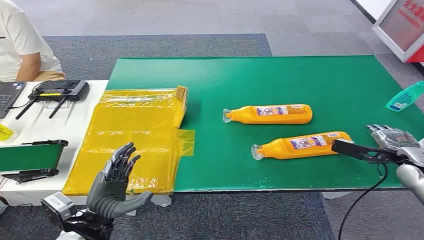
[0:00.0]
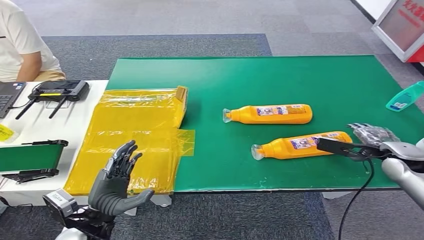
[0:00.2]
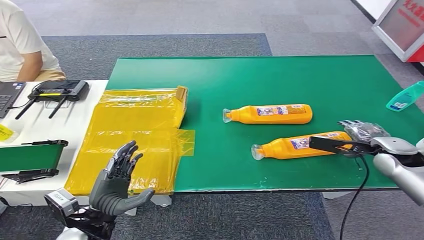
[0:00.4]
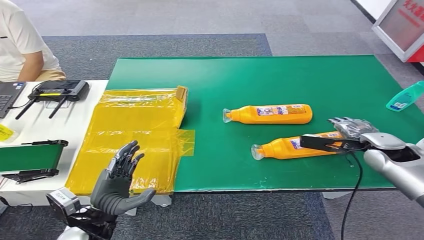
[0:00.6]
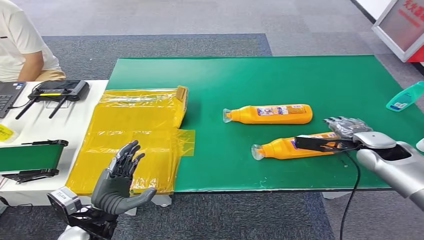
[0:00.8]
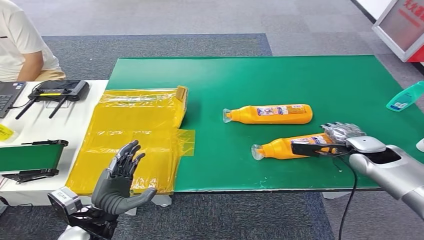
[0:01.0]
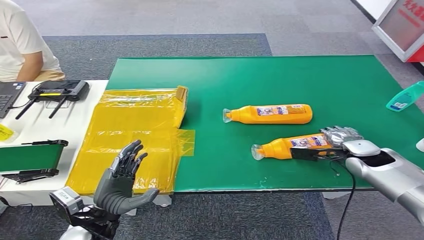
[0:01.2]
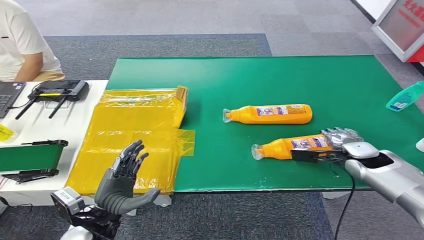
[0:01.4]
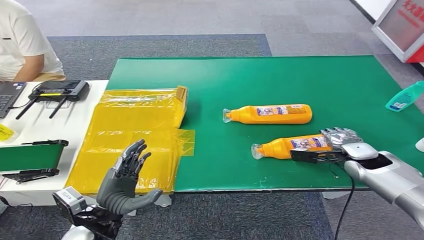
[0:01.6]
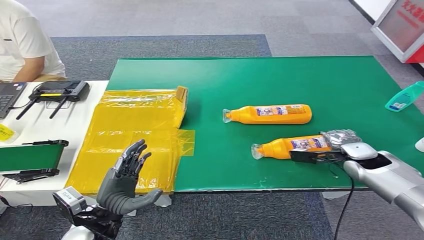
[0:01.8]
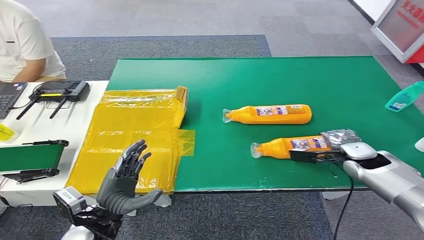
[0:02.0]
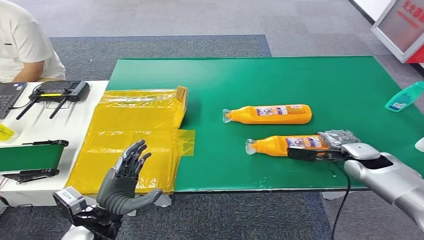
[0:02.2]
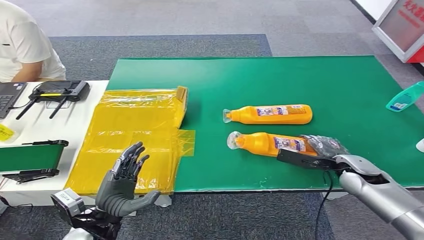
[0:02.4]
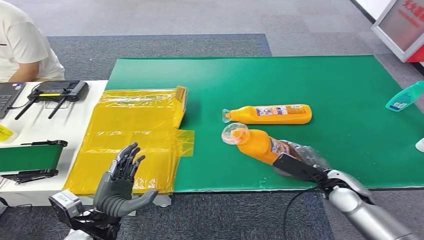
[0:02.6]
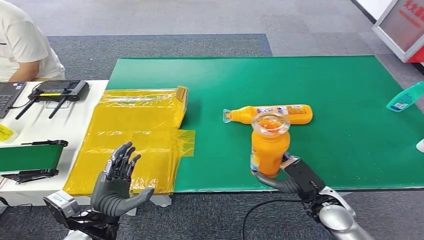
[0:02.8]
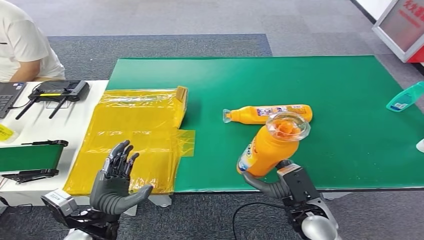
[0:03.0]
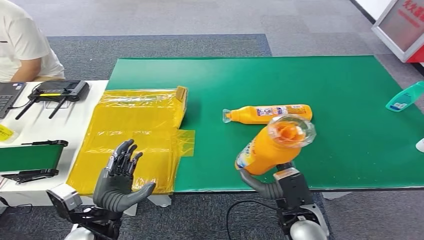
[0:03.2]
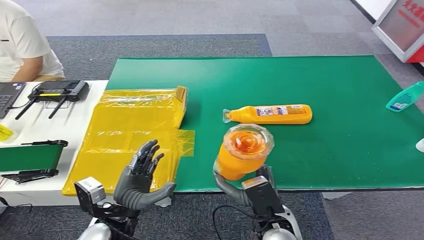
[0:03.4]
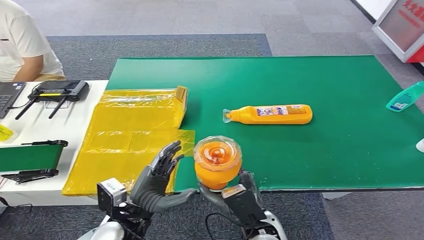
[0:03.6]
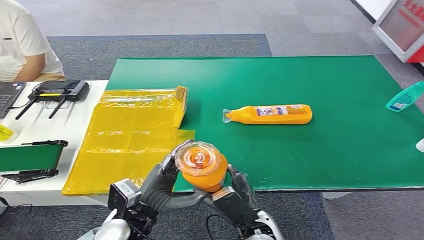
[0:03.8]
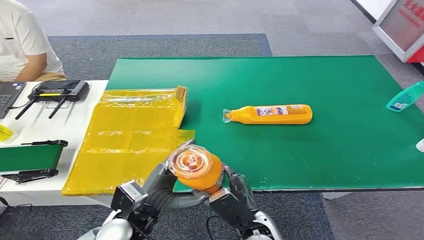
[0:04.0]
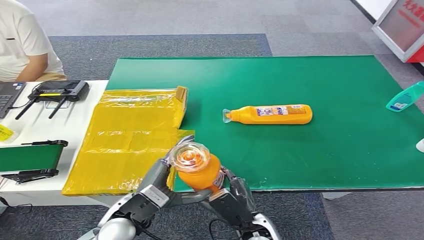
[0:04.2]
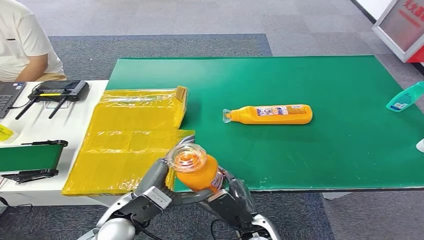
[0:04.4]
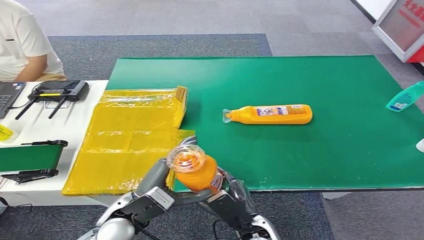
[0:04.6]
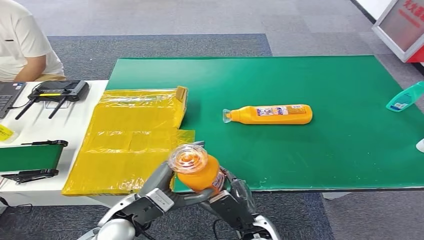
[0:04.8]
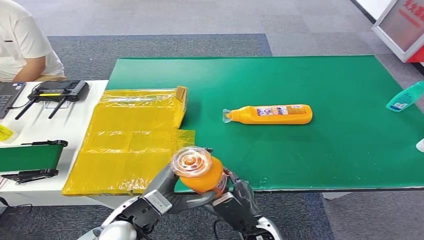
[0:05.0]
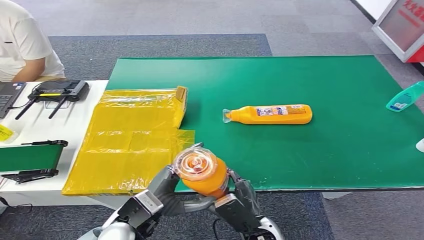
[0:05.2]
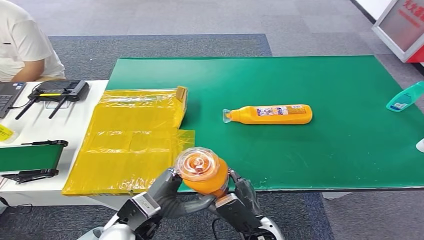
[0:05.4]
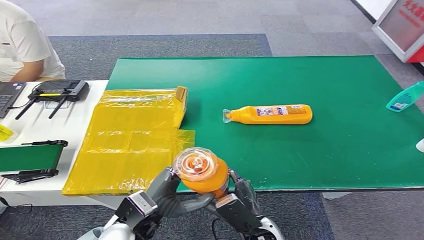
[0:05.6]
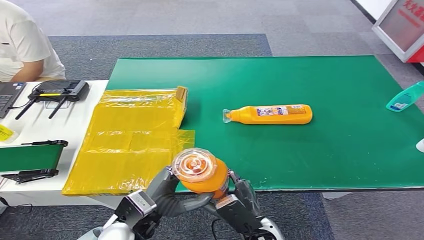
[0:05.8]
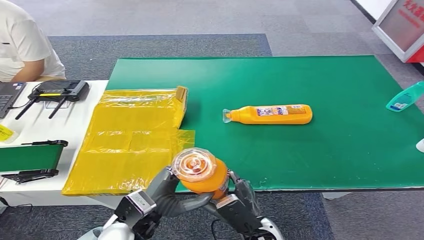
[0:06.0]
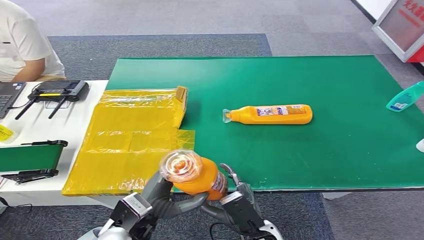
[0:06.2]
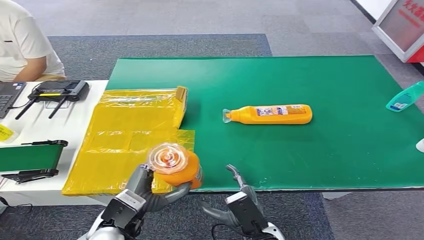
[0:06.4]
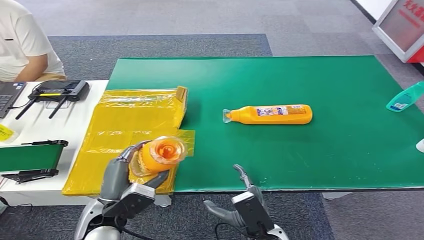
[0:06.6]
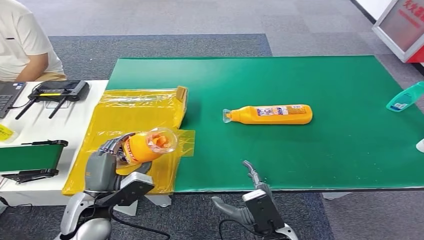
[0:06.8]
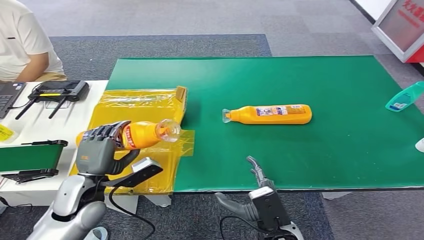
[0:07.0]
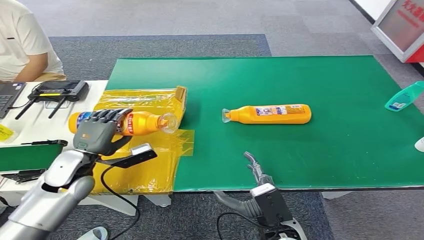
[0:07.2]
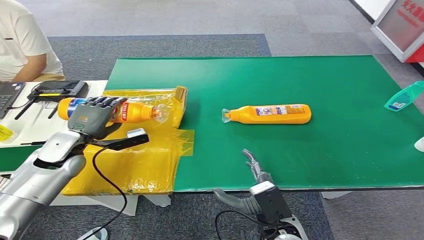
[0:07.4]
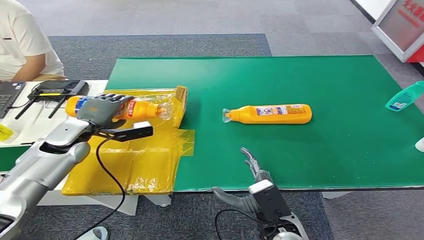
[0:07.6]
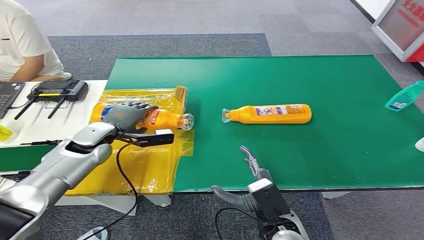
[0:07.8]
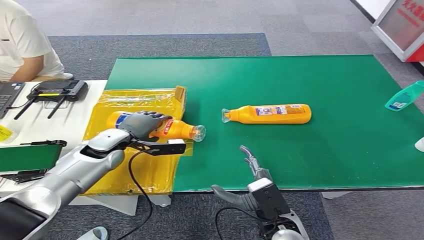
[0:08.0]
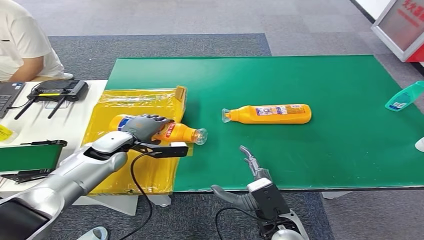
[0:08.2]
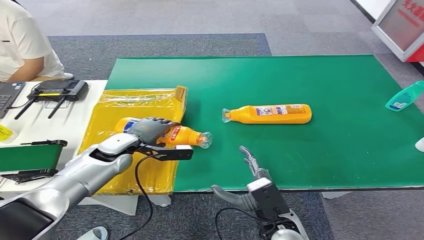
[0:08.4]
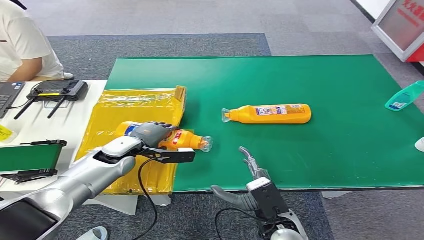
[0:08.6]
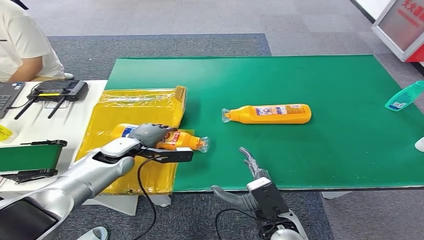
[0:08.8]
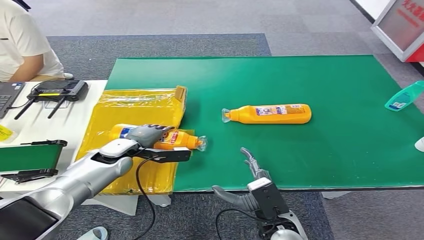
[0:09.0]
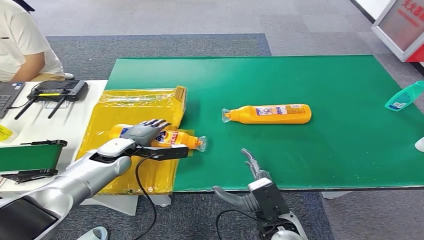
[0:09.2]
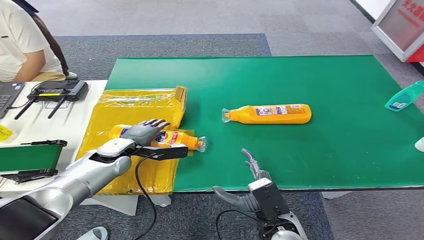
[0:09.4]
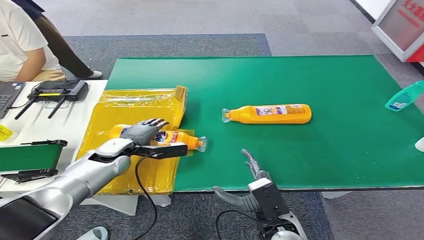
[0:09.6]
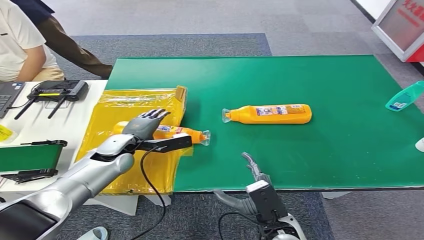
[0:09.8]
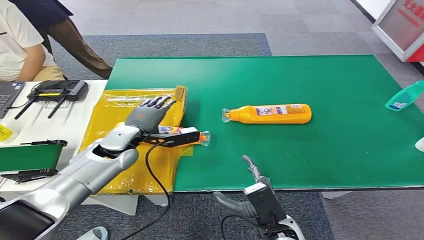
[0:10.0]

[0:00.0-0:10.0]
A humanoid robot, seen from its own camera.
Step, 0:00.0 to 0:03.0: Pick up the bottle from the table.
Step, 0:03.2 to 0:10.0: Turn the bottle to the front side.
0:01.4 to 0:02.8: The right hand goes some 15 cm backward and to the left.
0:02.8 to 0:04.2: The right hand goes roughly 15 cm to the left. The left hand travels to the right by about 5 cm.
0:04.2 to 0:05.8: There are only small adjustments of the hands.
0:05.8 to 0:07.2: The left hand goes about 20 cm to the left and forward.
0:07.2 to 0:08.6: The left hand travels to the right and forward by approximately 10 cm.
0:08.6 to 0:10.0: The hands move only a little.
